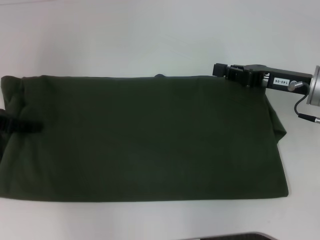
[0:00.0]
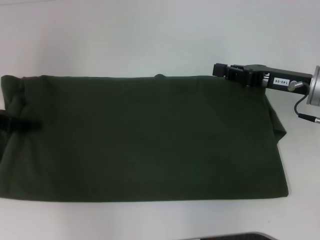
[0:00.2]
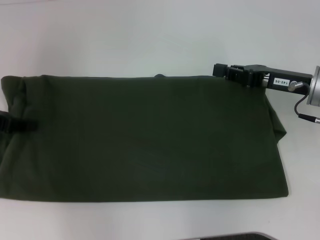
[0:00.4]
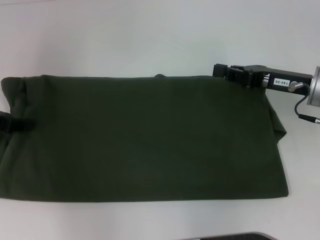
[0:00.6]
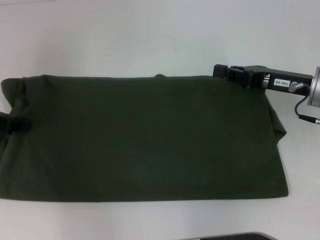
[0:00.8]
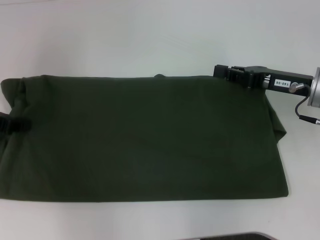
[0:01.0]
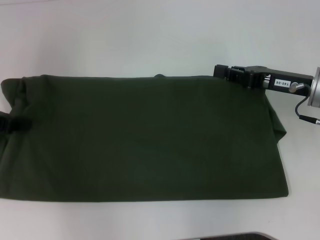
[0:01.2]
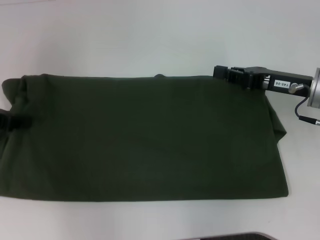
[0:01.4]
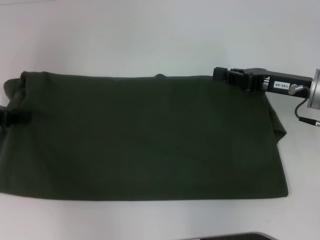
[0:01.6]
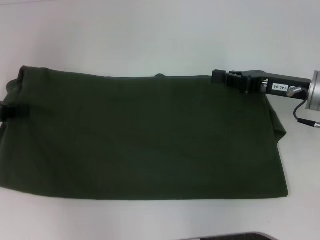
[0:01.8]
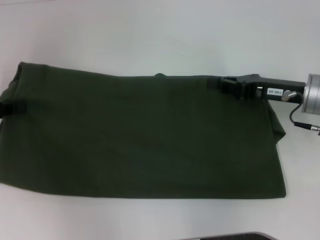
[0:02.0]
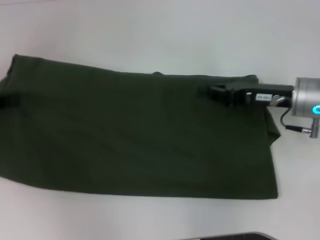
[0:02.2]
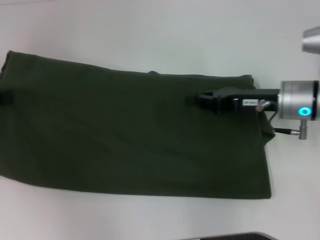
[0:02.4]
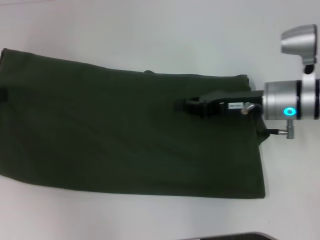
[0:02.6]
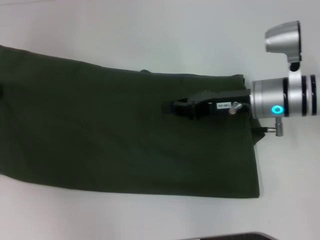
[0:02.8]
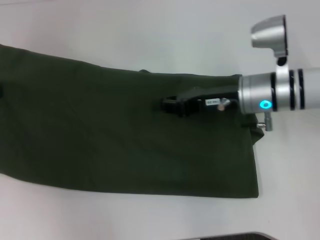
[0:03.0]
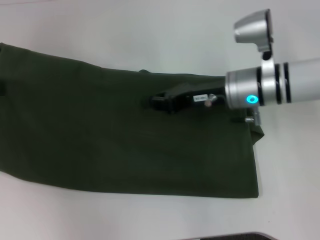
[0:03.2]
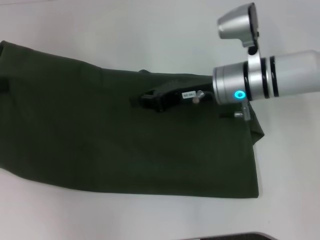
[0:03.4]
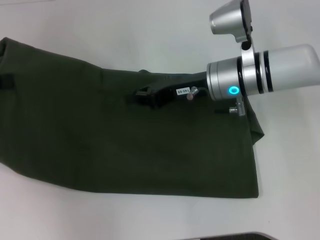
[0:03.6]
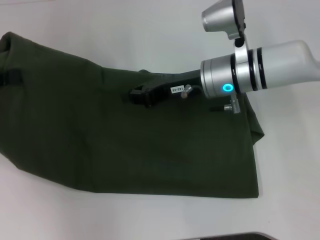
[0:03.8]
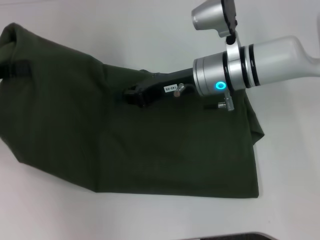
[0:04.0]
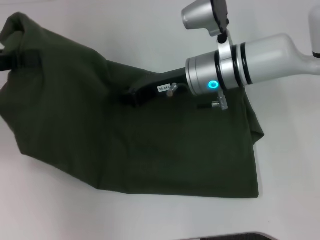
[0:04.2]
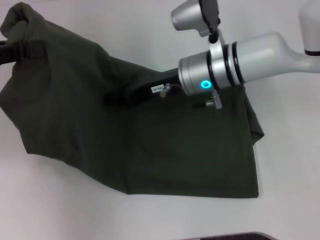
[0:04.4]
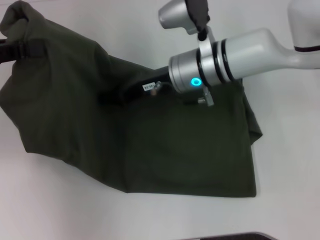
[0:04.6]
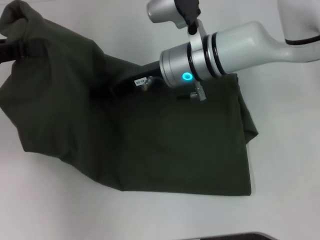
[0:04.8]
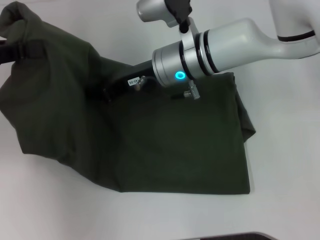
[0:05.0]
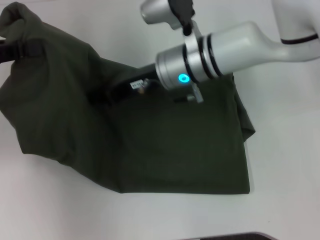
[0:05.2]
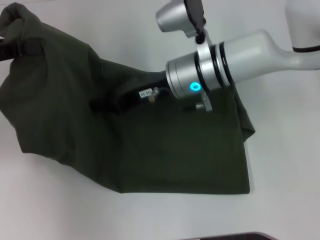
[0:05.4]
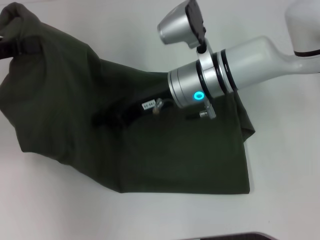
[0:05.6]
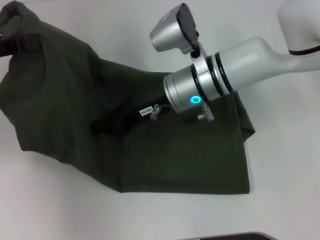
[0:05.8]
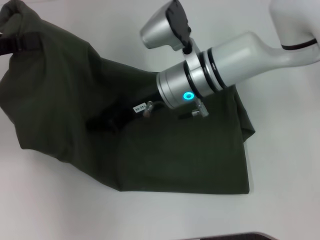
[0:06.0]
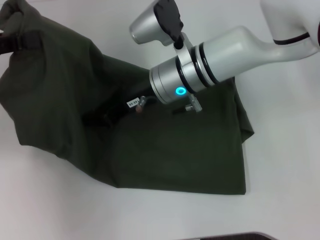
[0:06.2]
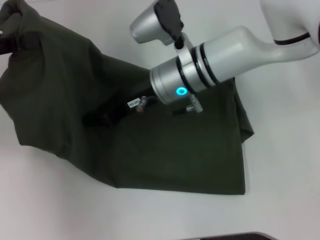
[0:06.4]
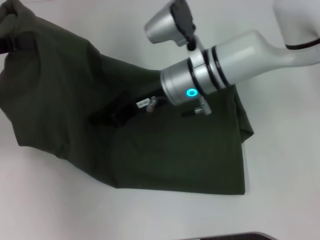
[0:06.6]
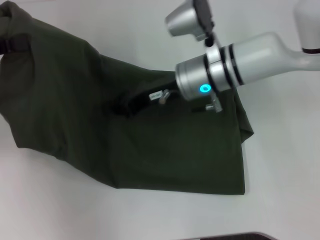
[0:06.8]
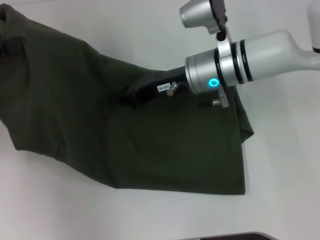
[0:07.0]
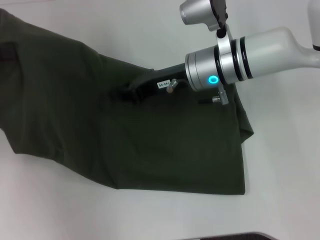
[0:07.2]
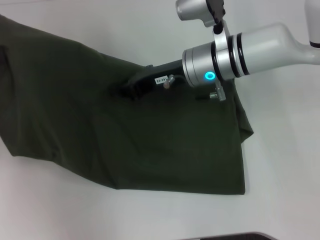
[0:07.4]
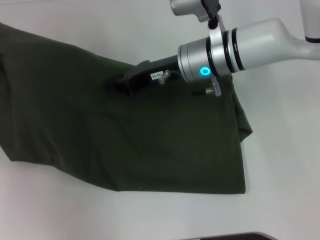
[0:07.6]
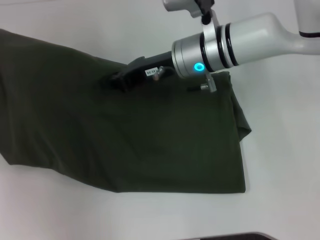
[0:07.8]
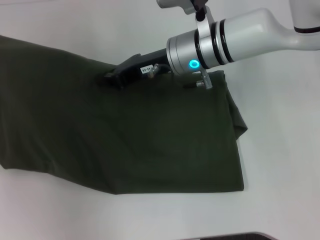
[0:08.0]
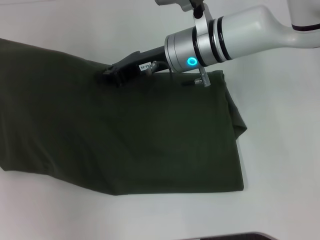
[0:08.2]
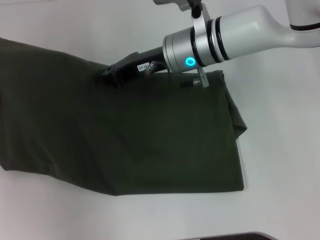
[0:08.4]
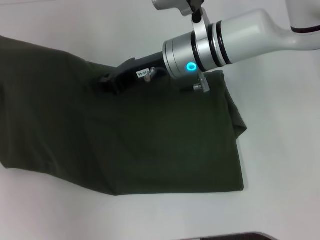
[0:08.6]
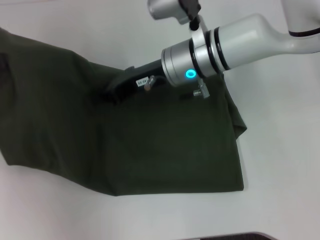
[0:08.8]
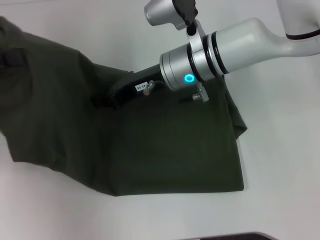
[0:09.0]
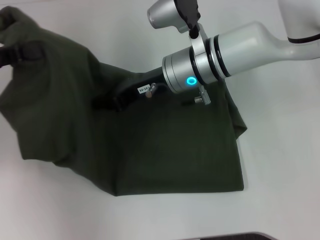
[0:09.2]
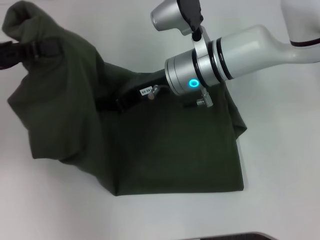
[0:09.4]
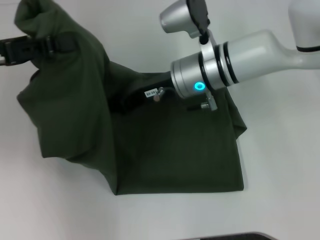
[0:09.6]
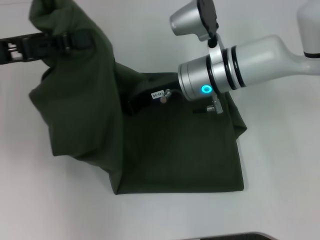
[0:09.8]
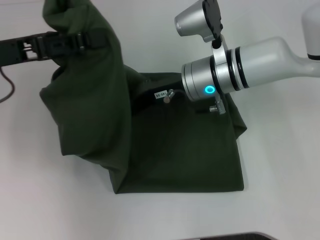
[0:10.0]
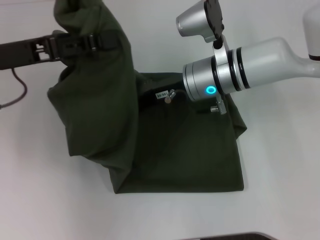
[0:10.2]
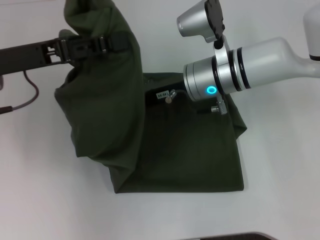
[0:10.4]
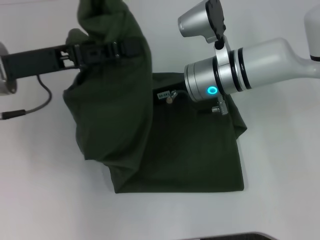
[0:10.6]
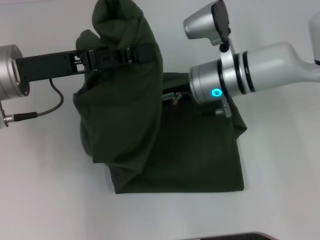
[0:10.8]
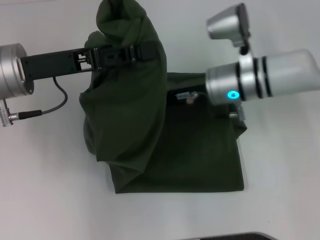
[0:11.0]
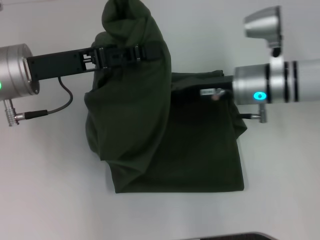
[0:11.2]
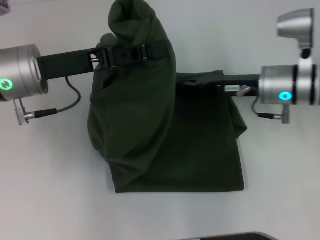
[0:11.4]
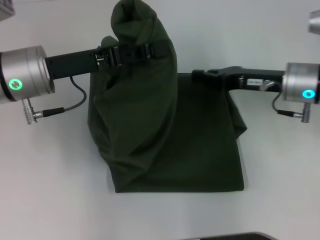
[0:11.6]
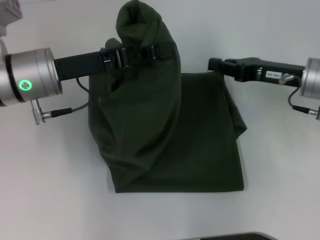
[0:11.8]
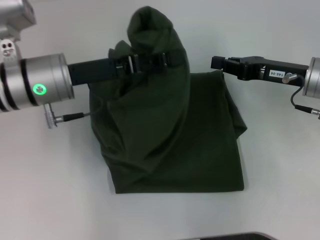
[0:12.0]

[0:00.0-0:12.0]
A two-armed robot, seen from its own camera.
0:00.0 to 0:01.6: The left gripper closes its fingers.
0:01.6 to 0:03.0: The right gripper is displaced to the left by roughly 10 cm. Meanwhile the left gripper moves about 5 cm.
0:03.0 to 0:04.4: The right gripper moves to the left, some 10 cm. The left gripper moves some 5 cm.
0:04.4 to 0:06.0: The grippers move only a little.
0:06.0 to 0:07.6: The left gripper moves some 5 cm.
0:07.6 to 0:09.0: The grippers stay close to where they were, moving slightly.
0:09.0 to 0:10.4: The left gripper goes approximately 10 cm to the right.
0:10.4 to 0:12.0: The right gripper travels to the right by roughly 15 cm, while the left gripper shifts some 5 cm to the right.

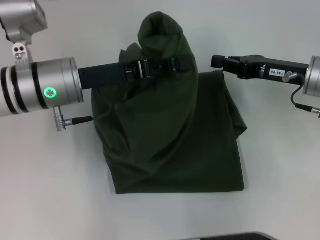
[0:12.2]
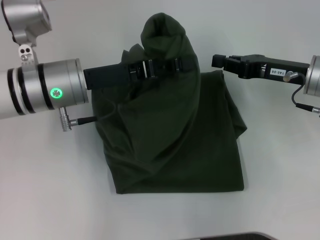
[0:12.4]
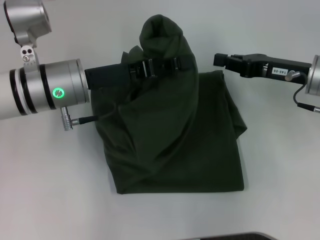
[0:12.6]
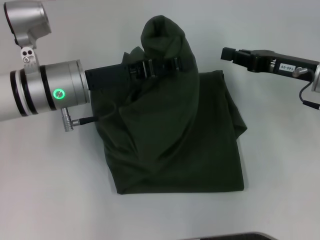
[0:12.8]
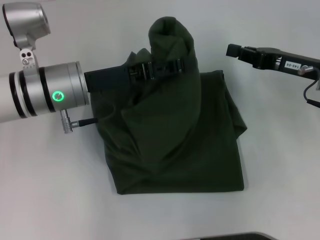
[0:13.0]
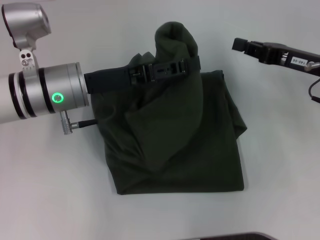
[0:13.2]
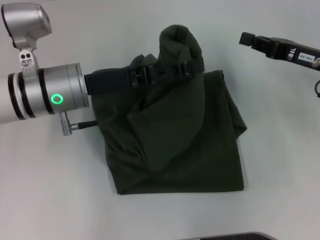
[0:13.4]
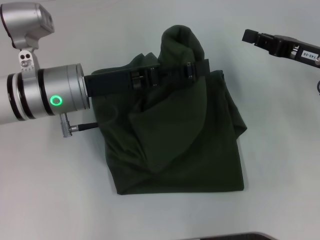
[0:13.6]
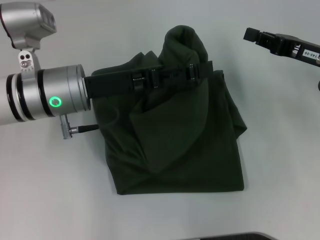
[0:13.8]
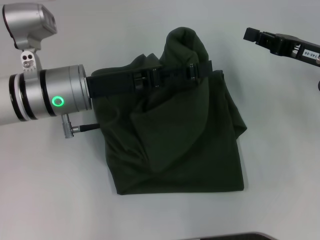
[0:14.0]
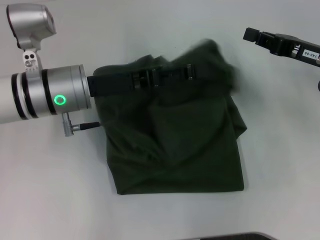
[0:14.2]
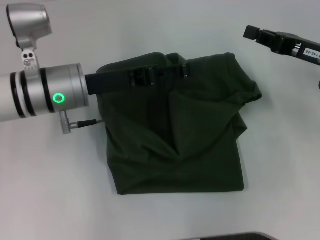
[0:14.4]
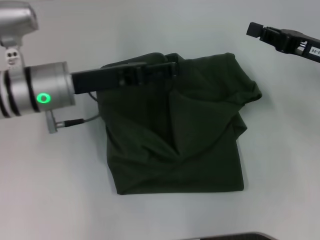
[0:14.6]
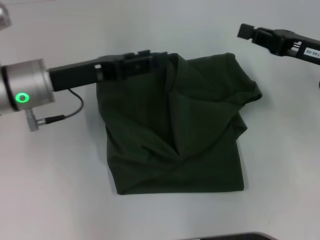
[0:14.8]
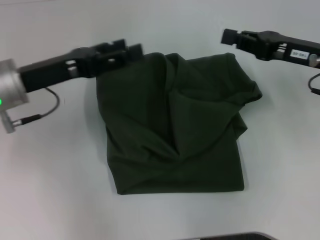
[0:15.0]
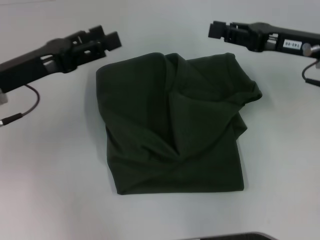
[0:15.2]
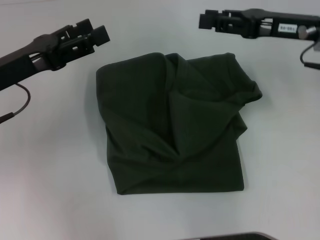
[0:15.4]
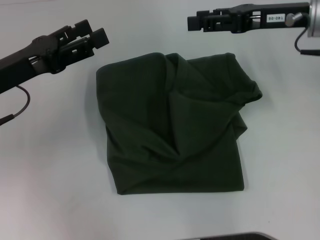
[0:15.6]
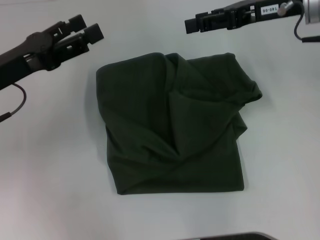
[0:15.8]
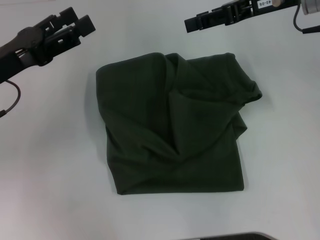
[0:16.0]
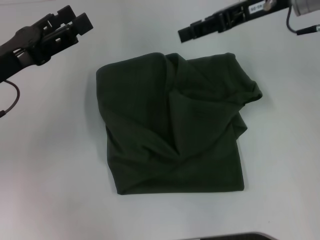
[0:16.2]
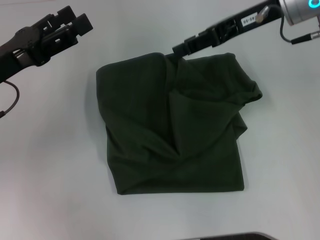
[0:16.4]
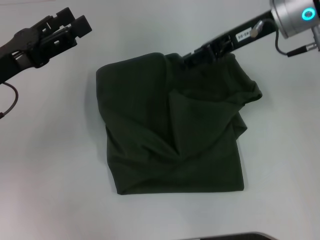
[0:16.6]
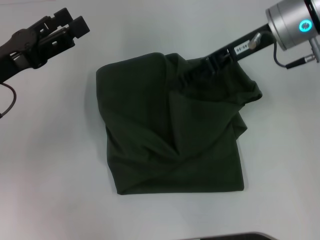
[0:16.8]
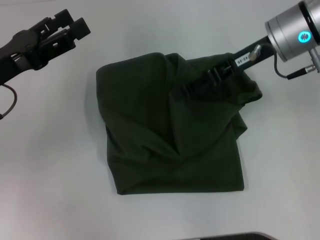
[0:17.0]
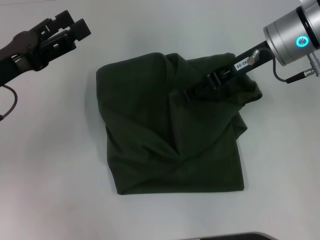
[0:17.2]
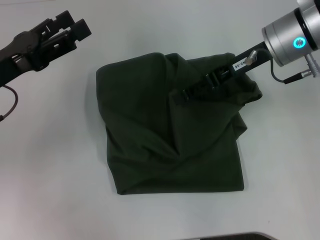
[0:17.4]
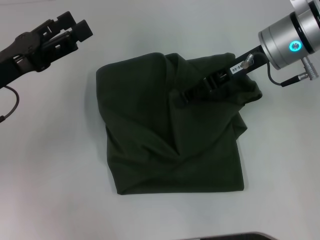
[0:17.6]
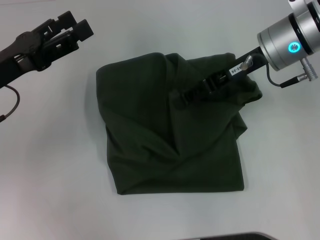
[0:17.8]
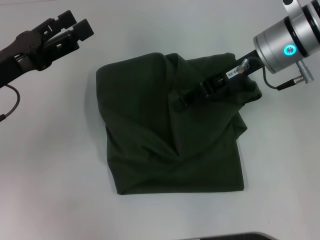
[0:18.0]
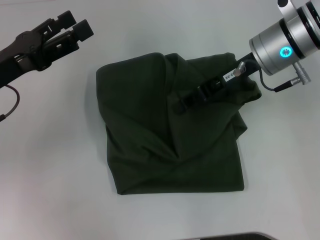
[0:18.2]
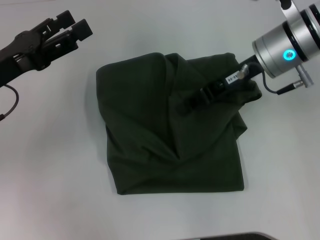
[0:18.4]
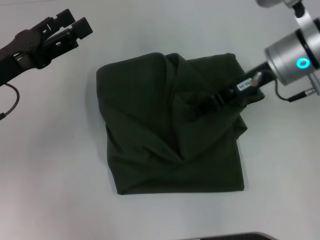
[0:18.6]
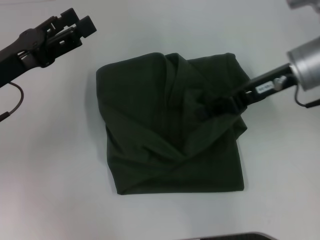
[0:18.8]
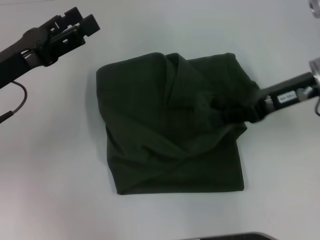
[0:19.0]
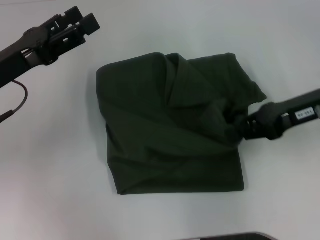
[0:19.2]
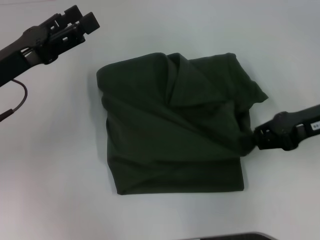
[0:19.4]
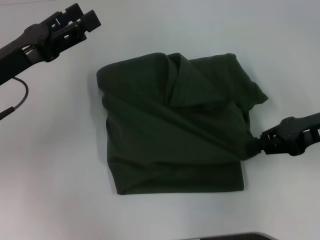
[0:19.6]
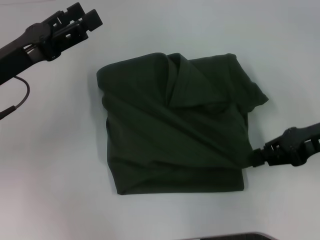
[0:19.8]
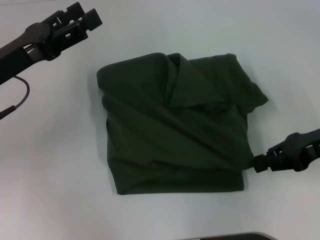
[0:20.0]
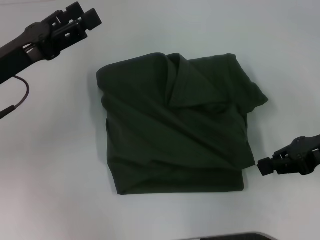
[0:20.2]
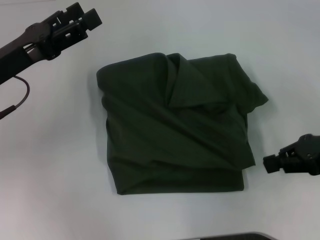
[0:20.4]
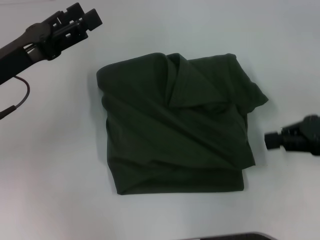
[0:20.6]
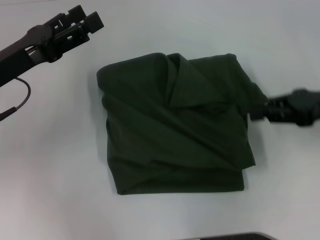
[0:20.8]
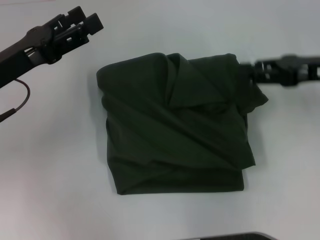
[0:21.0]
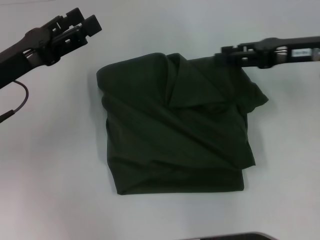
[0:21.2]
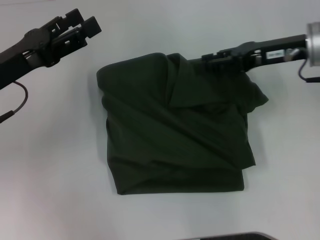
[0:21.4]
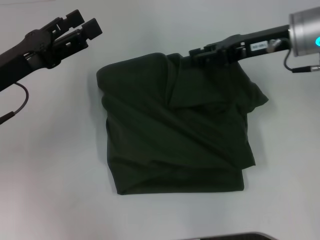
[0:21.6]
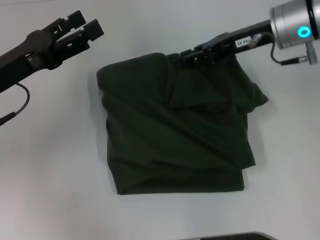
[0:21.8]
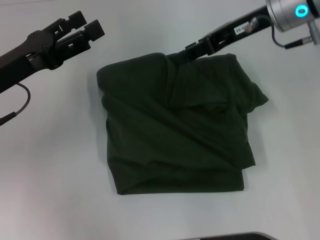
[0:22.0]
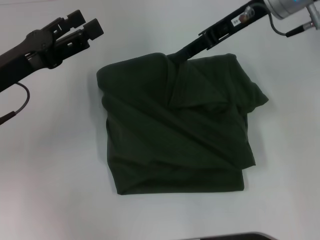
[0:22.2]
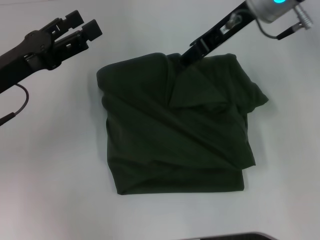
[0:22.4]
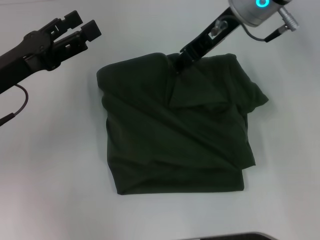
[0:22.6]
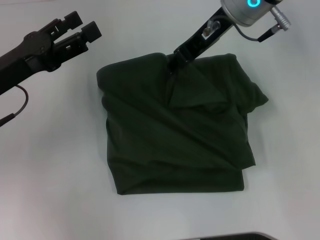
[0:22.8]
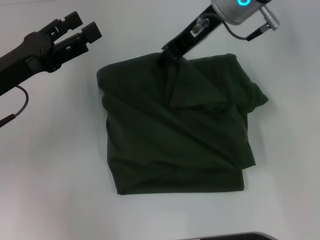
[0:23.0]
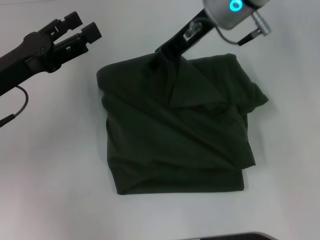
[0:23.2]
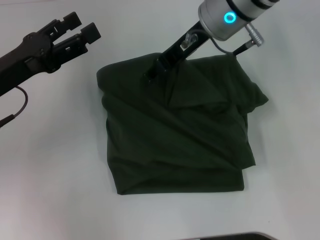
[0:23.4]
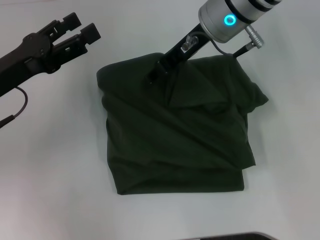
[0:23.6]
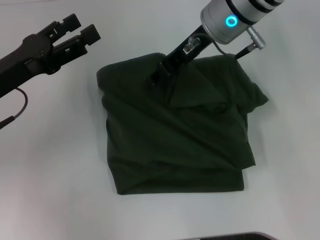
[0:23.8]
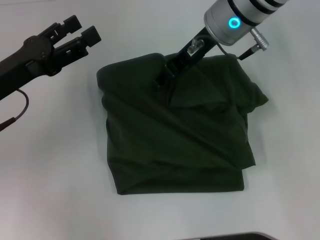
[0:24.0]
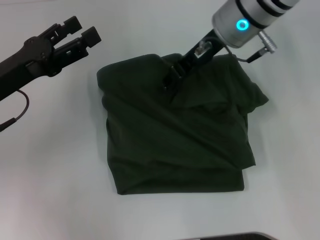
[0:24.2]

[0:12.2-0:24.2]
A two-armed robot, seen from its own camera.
Step, 0:12.2 to 0:15.2: Fold the clothes with your left hand.
0:12.2 to 0:13.8: The left gripper opens.
0:13.8 to 0:15.2: The right gripper ends up roughly 5 cm from where it was, while the left gripper travels to the left by some 10 cm.
0:15.2 to 0:16.6: The right gripper heads to the left, upward and forward, covering roughly 10 cm, and opens.
0:16.6 to 0:18.2: There are only small adjustments of the grippers.
0:18.2 to 0:19.8: The right gripper is displaced to the right and backward by about 15 cm.
0:19.8 to 0:21.2: The right gripper goes roughly 5 cm forward.
0:21.2 to 0:22.6: The right gripper shifts about 15 cm to the left, upward and forward.
0:22.6 to 0:24.2: There are only small adjustments of the grippers.
